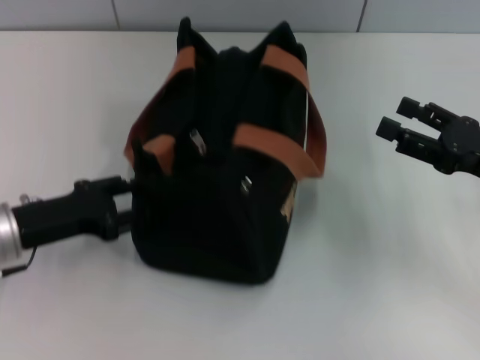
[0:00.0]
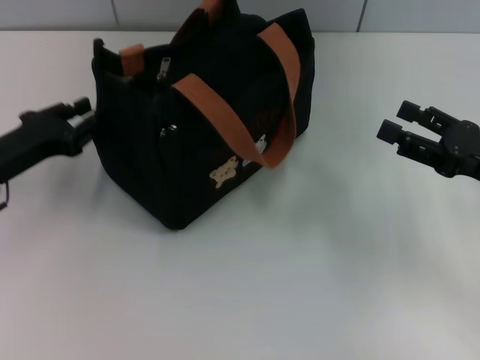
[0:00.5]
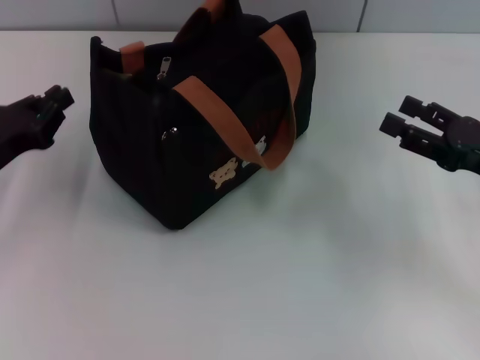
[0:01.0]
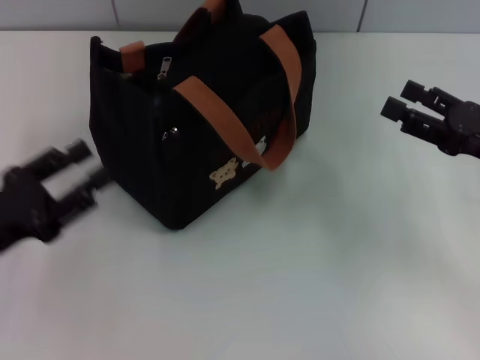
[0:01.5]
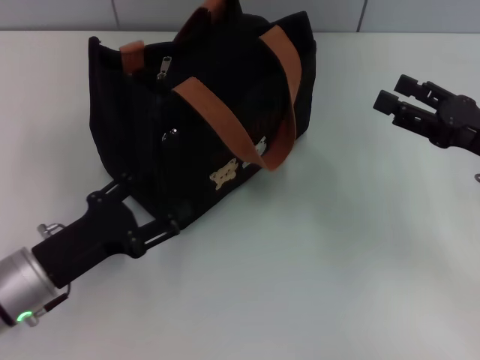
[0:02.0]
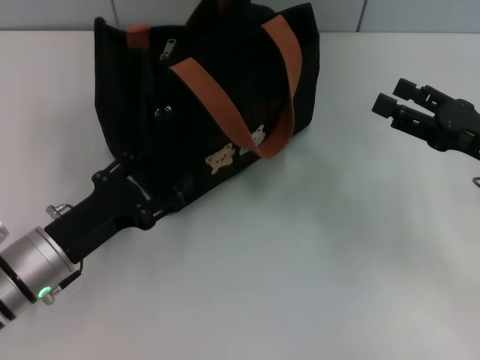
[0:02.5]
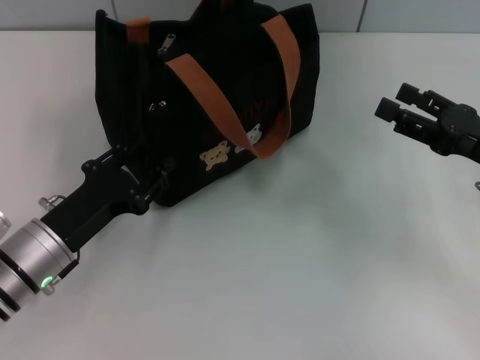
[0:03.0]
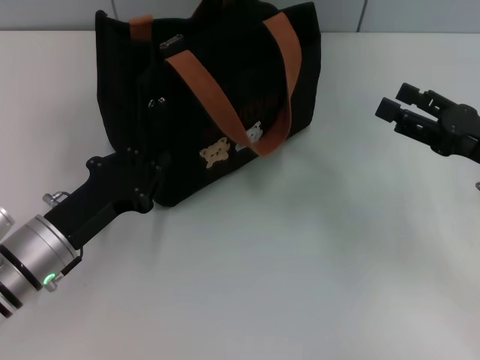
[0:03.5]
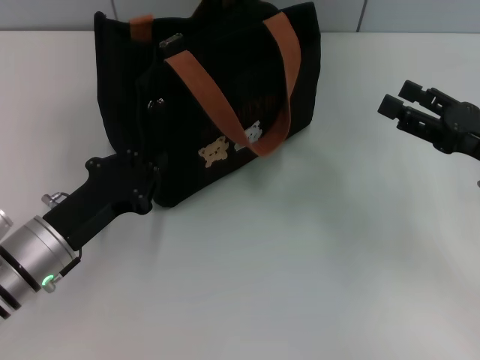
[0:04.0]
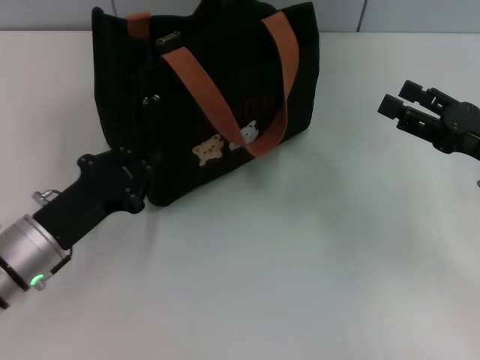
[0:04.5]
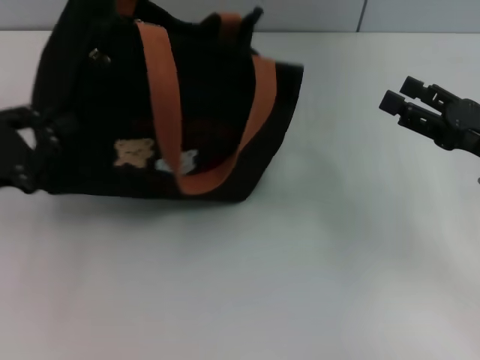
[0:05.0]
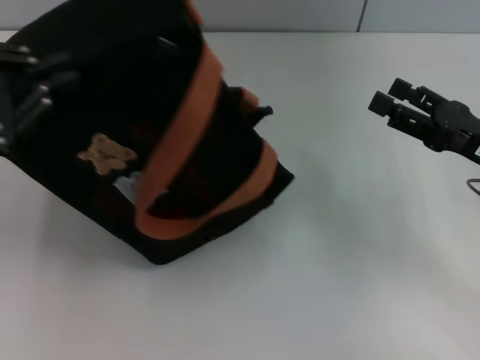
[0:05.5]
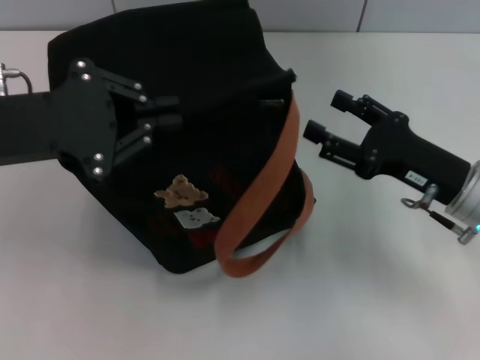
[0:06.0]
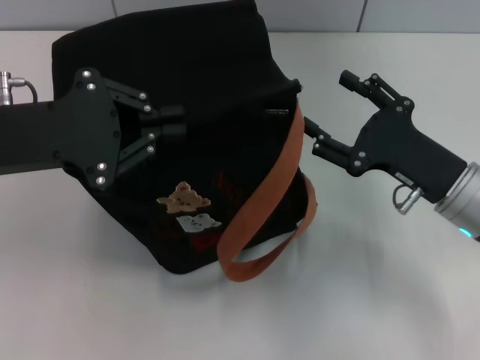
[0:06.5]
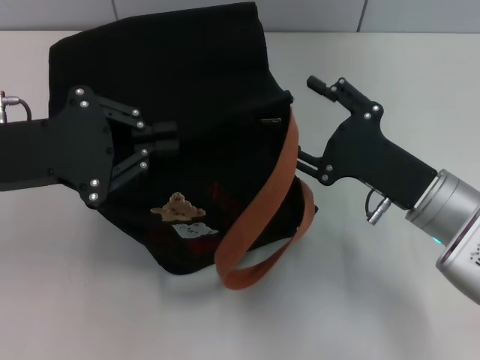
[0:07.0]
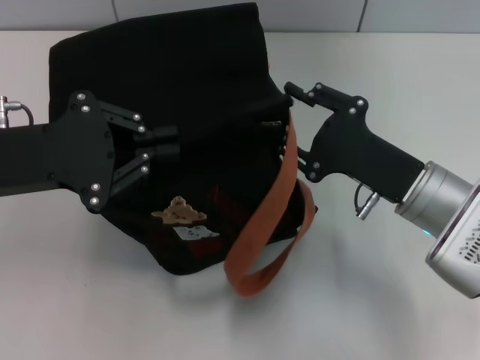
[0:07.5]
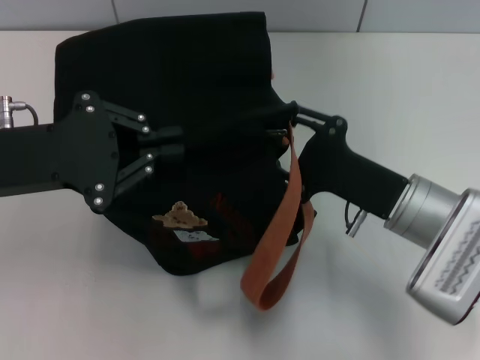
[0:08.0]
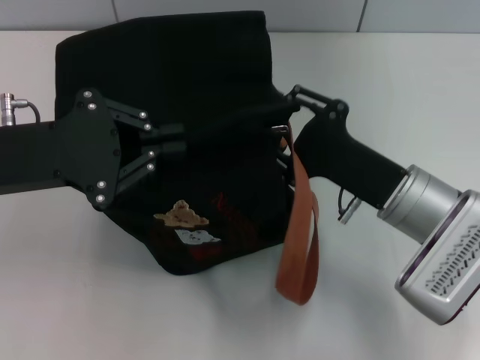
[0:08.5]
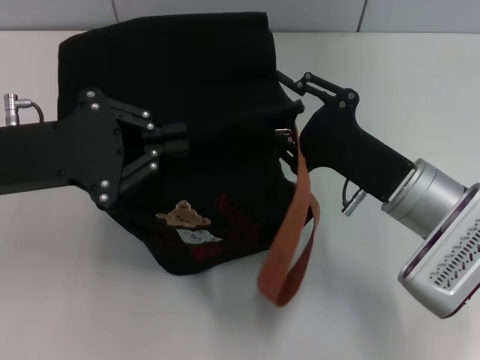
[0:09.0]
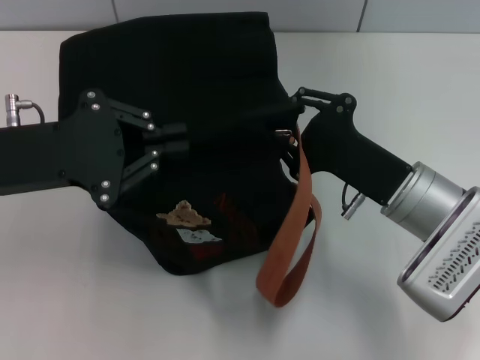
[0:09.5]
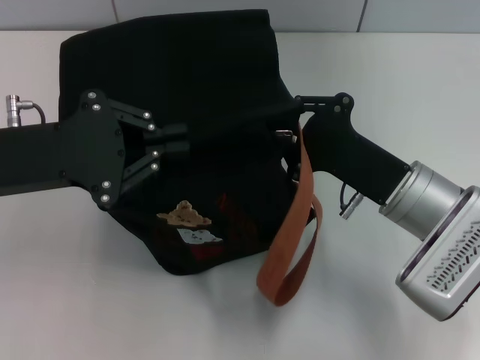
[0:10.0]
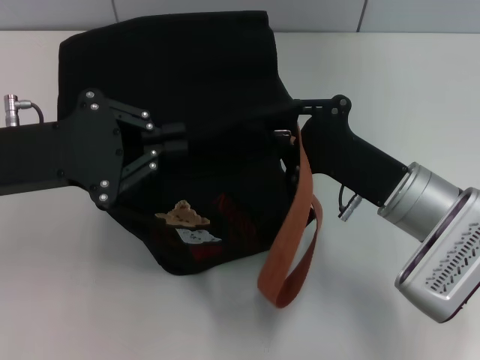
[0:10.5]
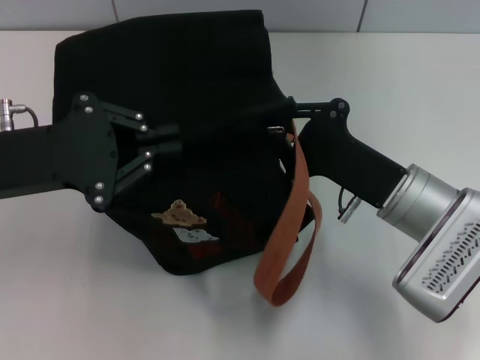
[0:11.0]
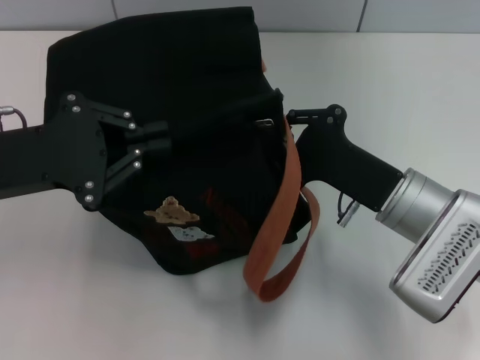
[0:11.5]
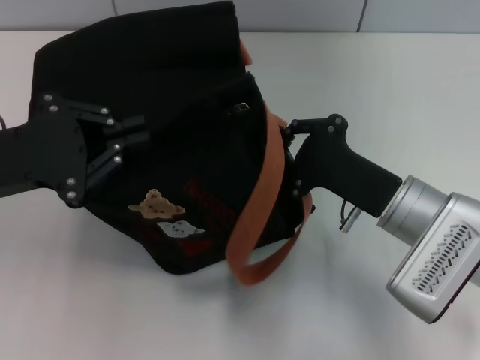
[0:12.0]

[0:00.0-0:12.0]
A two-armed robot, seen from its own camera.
0:00.0 to 0:02.0: The left gripper travels backward by about 5 cm, and closes, then opens again.
0:02.0 to 0:04.0: The left gripper closes up.
0:04.0 to 0:06.0: The right gripper moves to the left, roughly 5 cm; the left gripper is displaced upward by roughly 15 cm.
0:06.0 to 0:08.0: The right gripper travels to the left by roughly 5 cm, and closes up.
0:08.0 to 0:10.0: The right gripper closes its fingers.

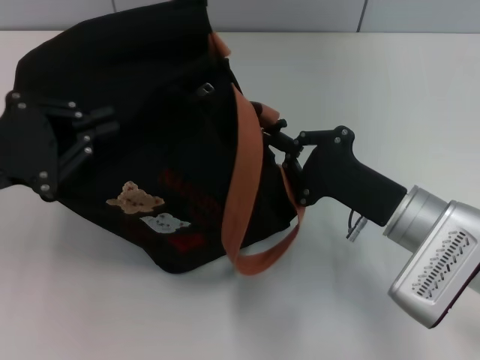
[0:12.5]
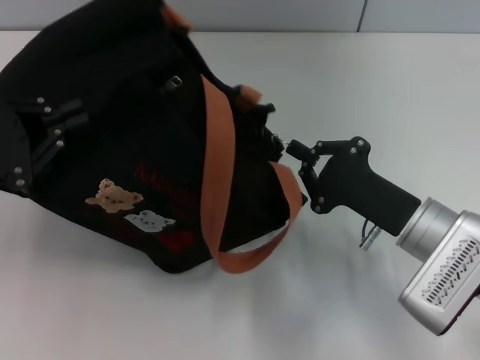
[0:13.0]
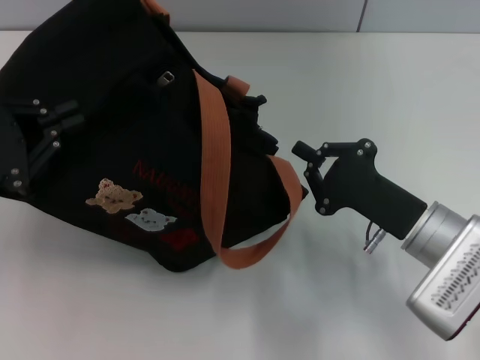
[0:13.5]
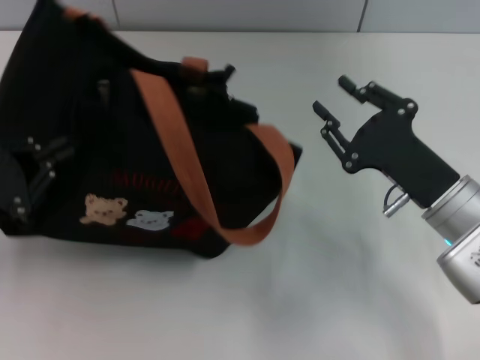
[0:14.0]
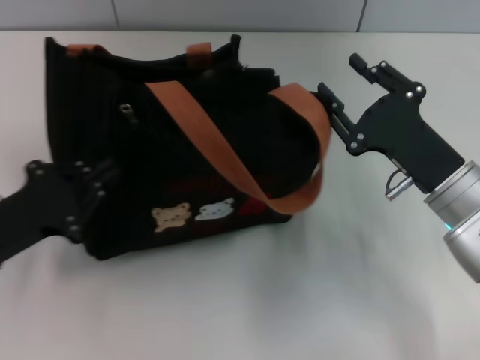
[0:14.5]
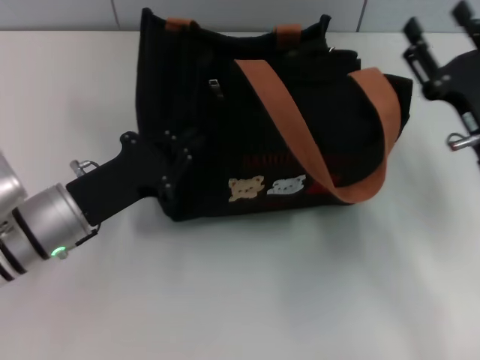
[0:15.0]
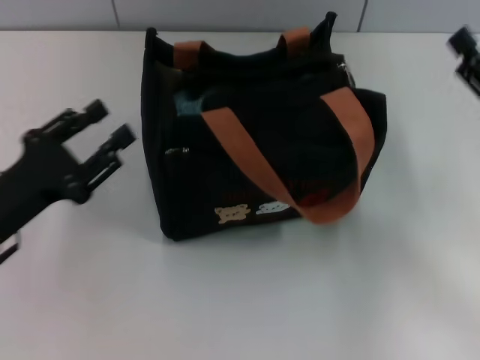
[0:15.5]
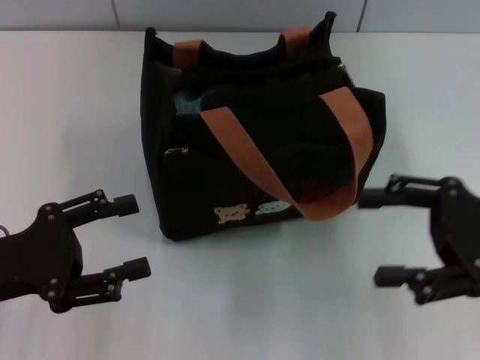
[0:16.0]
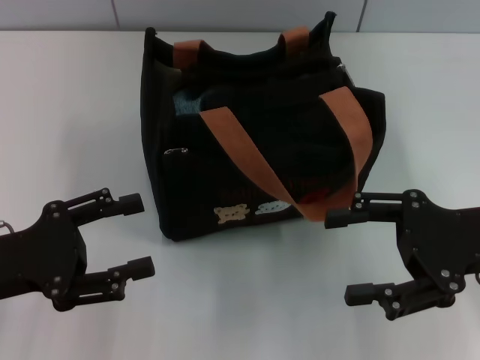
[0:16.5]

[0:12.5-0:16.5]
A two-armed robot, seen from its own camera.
Step, 0:14.0 to 0:15.5: Grab the bag with your left hand.
0:12.5 to 0:14.5: The right gripper opens. The left gripper moves downward, some 10 cm.
0:14.5 to 0:16.5: The right gripper travels upward and to the right by about 10 cm, and opens. The left gripper travels to the right and back again, some 5 cm each way, and opens.
